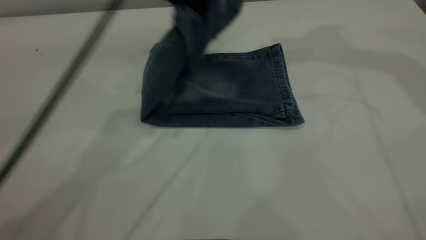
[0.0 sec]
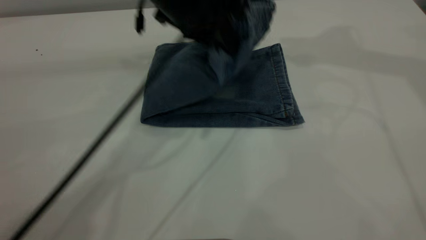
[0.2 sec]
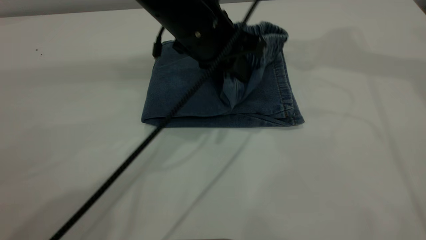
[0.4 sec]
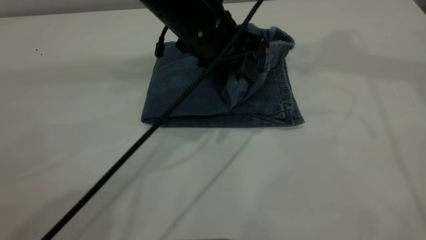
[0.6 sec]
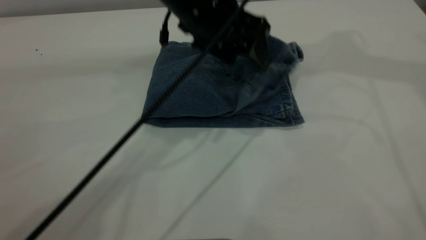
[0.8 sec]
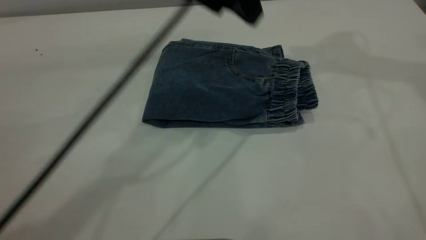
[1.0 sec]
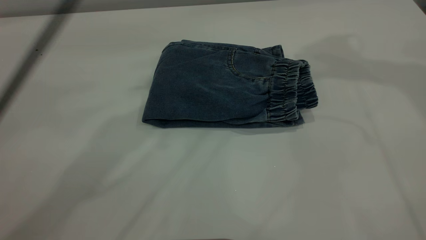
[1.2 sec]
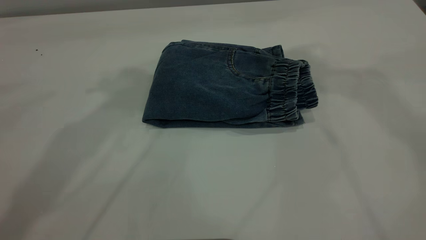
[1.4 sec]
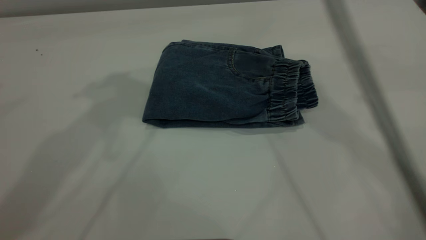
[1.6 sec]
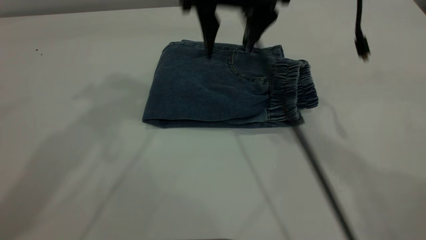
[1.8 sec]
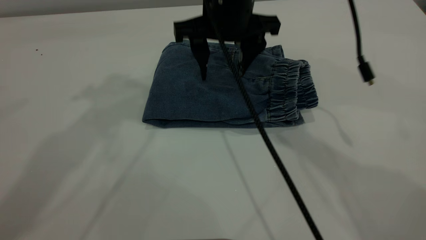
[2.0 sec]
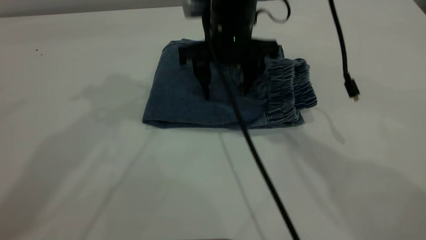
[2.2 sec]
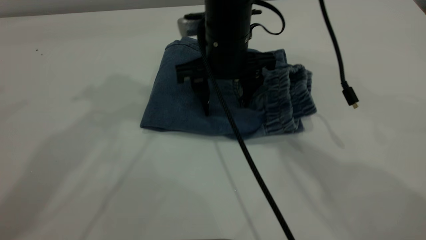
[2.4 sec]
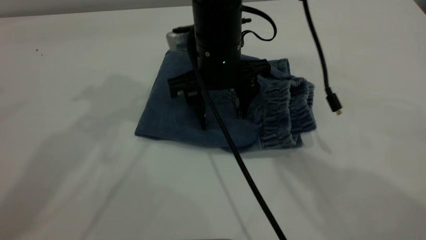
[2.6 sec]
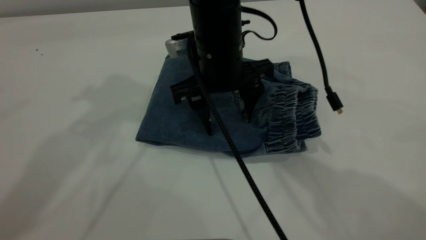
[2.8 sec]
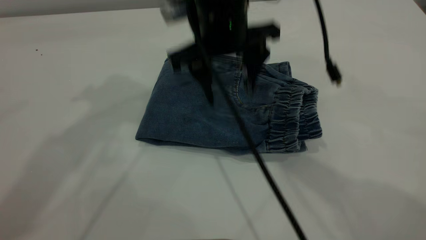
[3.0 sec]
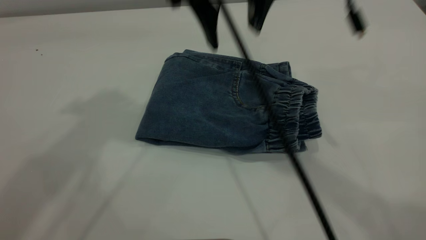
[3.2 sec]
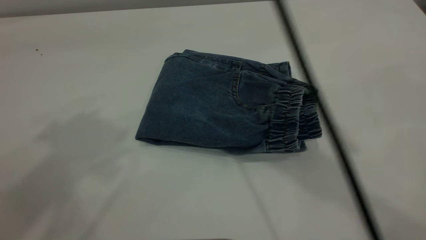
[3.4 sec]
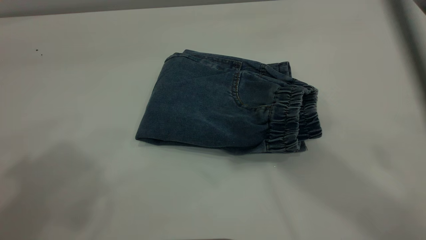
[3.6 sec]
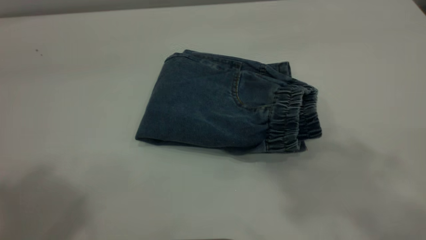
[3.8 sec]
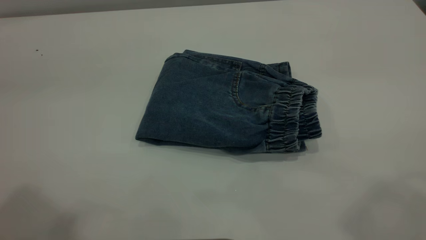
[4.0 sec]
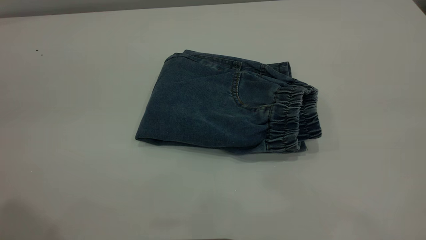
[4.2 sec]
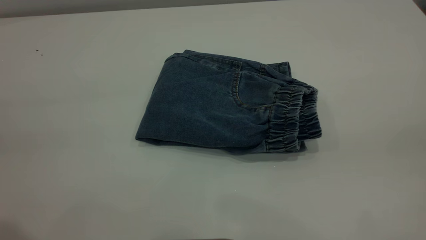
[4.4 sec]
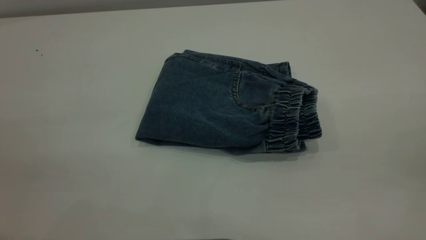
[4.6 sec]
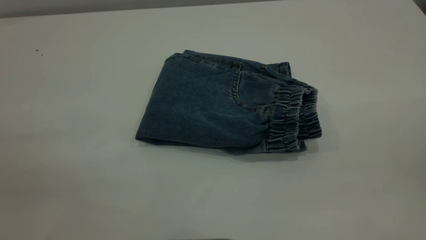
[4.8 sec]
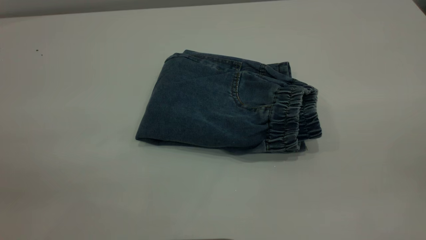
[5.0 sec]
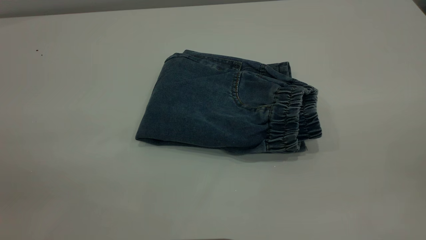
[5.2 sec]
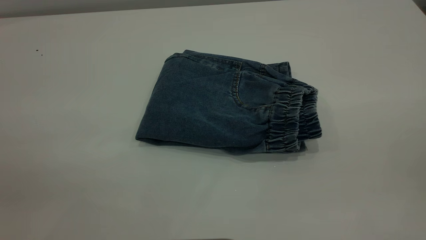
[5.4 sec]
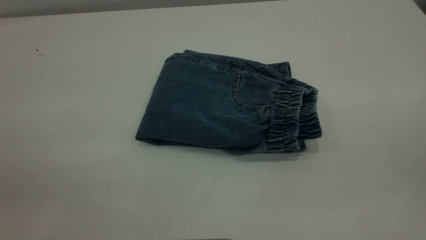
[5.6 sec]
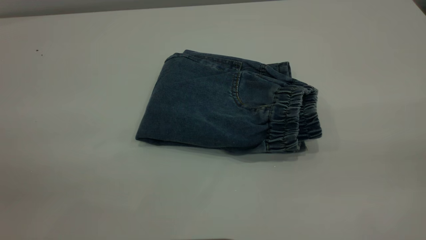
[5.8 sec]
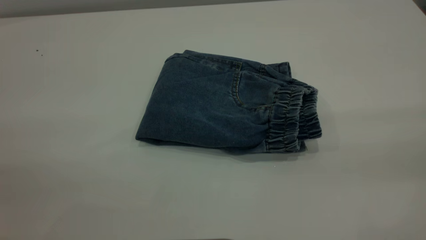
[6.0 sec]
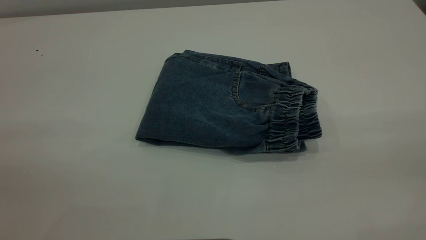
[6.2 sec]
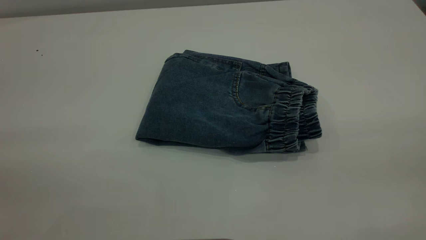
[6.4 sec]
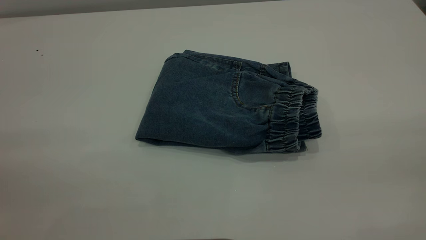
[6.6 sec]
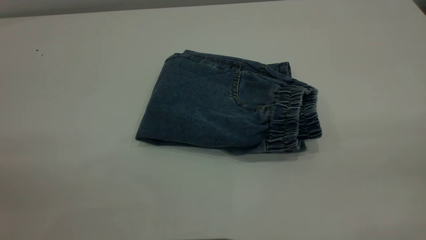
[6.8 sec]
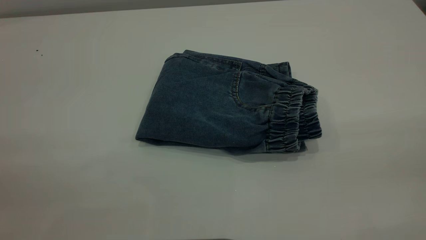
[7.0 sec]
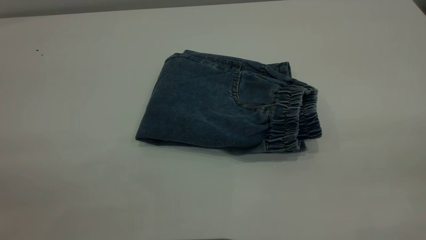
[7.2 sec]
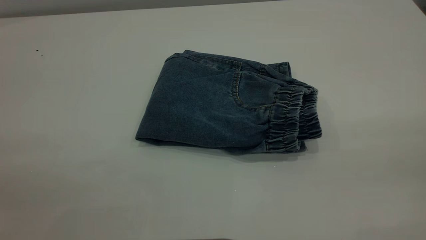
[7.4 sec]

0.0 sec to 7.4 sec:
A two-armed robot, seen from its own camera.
0.0 sec to 1.4 sec: The right gripper travels to the left and backward by roughly 10 cm, while the left gripper heads upward and to the left, covering approximately 15 cm, and opens.
1.4 sec to 3.0 sec: The right gripper heads downward and to the left, covering some 20 cm.
3.0 sec to 4.4 sec: The right gripper moves backward, to the right and upward, some 40 cm. The left gripper is displaced backward by some 25 cm.
